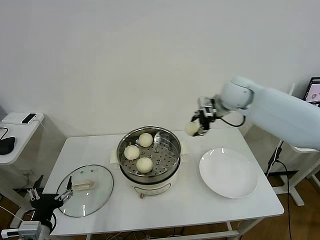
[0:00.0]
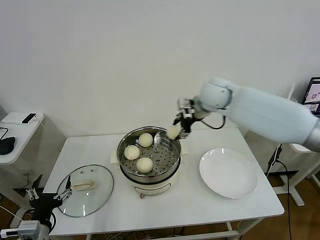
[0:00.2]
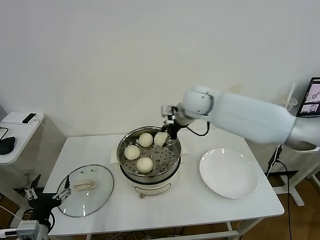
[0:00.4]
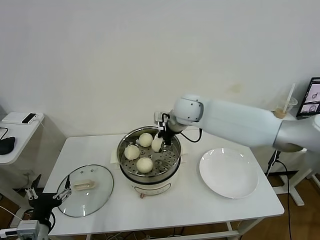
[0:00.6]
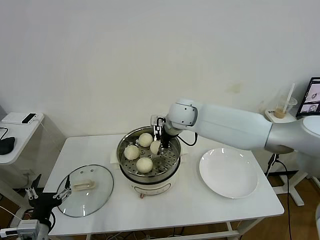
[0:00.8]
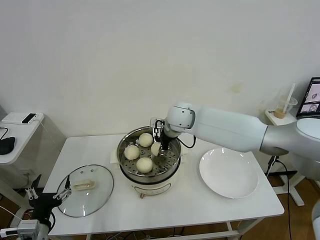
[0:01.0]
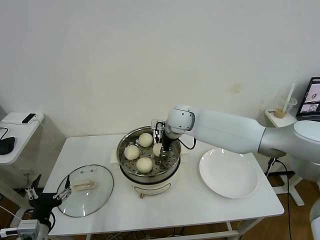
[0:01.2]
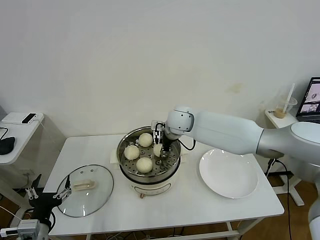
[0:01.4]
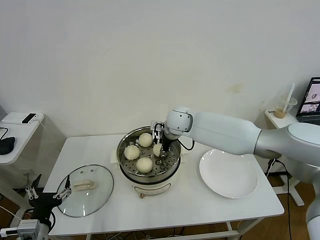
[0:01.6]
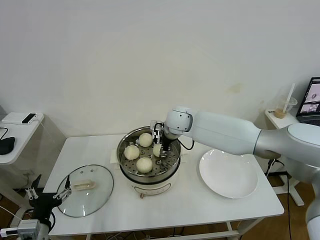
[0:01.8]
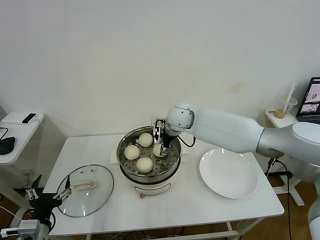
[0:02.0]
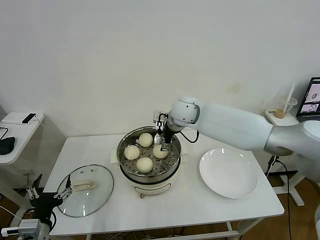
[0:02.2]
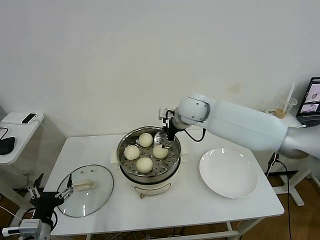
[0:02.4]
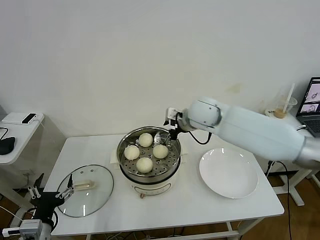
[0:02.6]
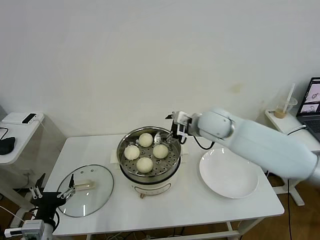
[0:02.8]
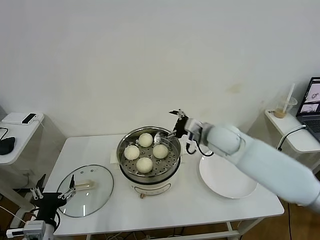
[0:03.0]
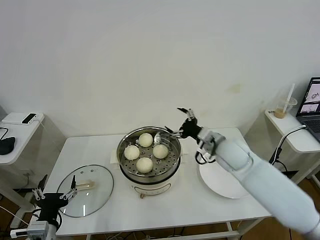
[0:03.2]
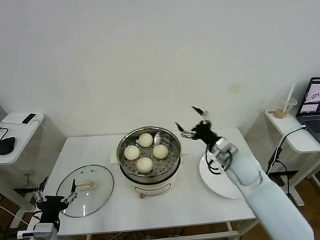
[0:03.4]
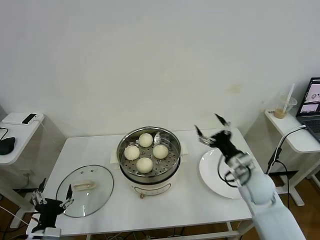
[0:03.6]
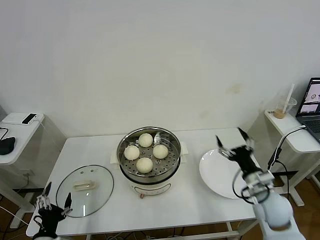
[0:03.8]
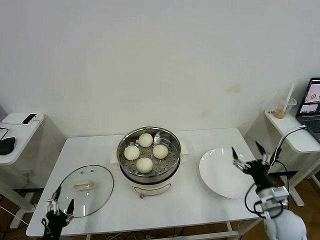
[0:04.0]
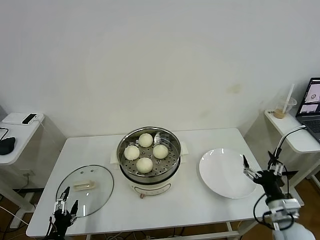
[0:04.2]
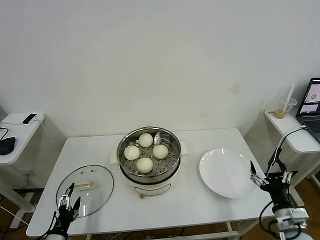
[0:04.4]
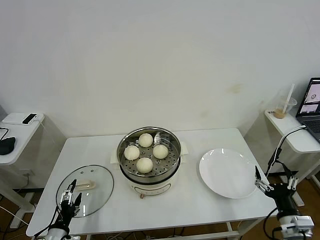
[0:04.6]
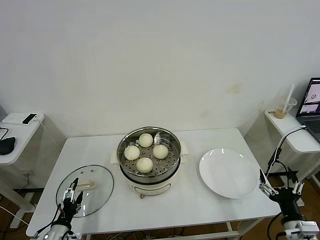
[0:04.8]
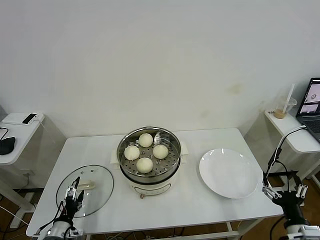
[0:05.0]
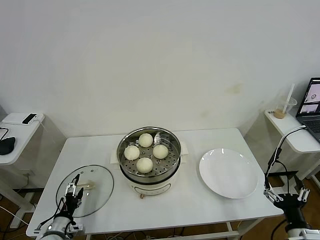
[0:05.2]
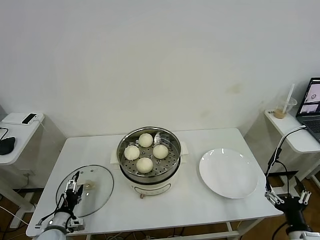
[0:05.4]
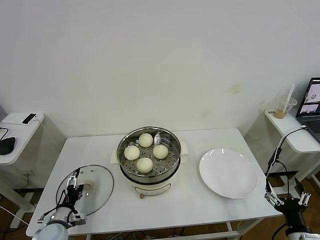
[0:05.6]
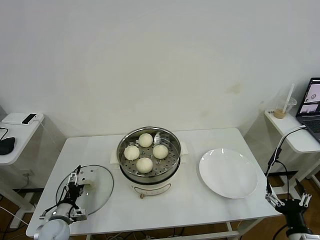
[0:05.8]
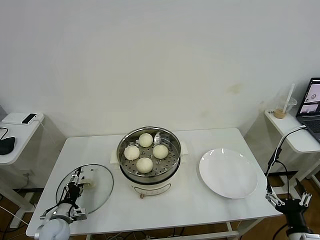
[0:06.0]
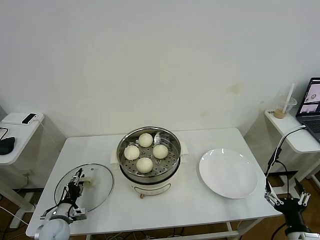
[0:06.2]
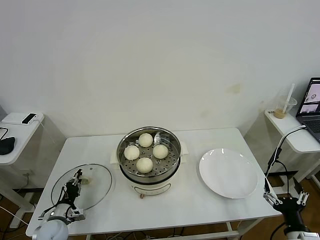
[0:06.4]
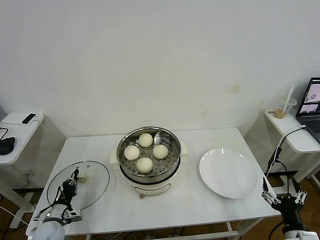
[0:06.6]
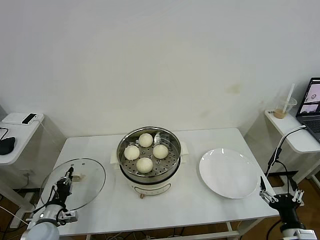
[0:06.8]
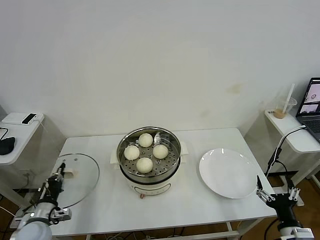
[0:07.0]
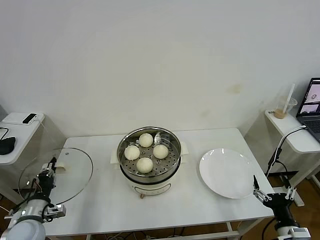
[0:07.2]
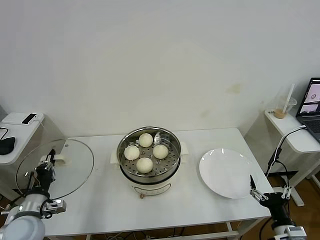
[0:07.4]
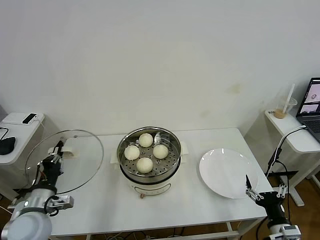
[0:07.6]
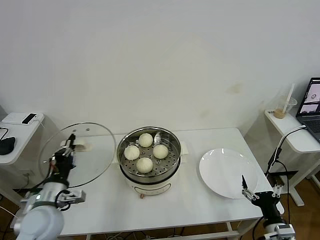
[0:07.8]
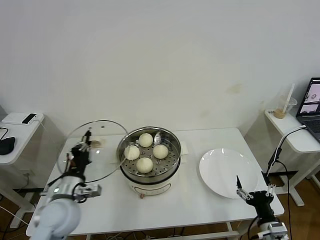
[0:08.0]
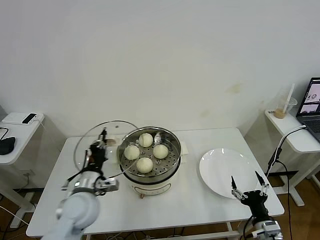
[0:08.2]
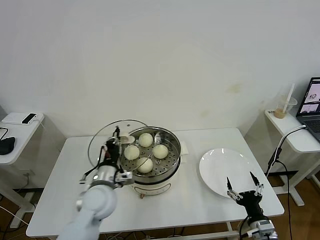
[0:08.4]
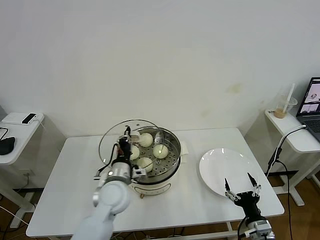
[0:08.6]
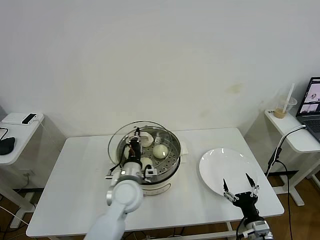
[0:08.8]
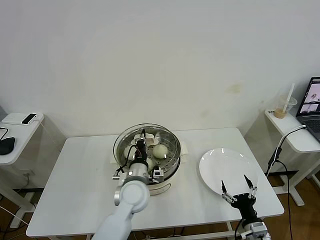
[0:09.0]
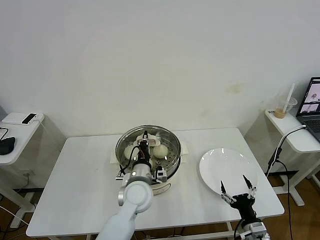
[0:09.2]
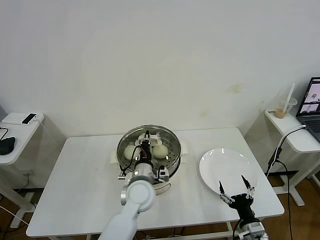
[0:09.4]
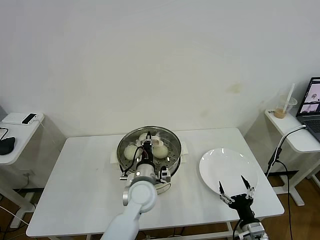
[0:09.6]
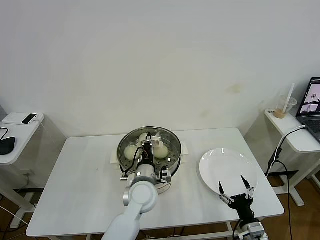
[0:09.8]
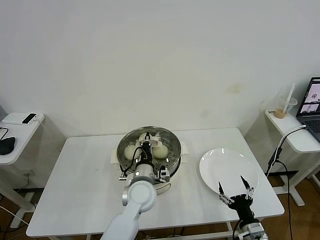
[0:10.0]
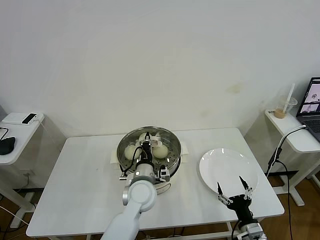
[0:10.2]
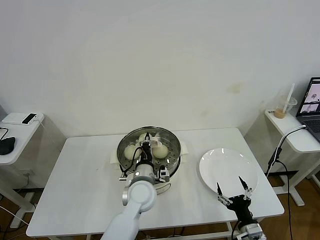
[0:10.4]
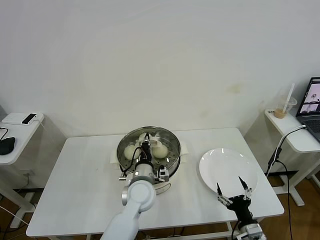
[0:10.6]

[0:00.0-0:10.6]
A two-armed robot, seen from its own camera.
Task of the whole recording: take steamed baozi put them in steamer then cover it.
Step, 0:00.0 to 0:02.2: Place the baozi on the steamer with right gripper.
Step, 0:02.4 to 0:06.6: Grasp the pot lid with left gripper.
0:00.0 to 0:01.6: The right gripper heads to the left and downward, covering about 20 cm.
0:01.6 to 0:03.0: The right gripper travels to the right and backward by about 15 cm, and opens.
0:03.0 to 0:04.6: The left gripper shifts roughly 10 cm downward, while the right gripper heads backward, to the right and downward, covering approximately 35 cm.
0:04.6 to 0:06.0: The left gripper moves forward, approximately 10 cm.
0:06.0 to 0:07.6: The left gripper is displaced upward by about 15 cm, and closes.
0:07.6 to 0:09.0: The right gripper shifts by about 5 cm; the left gripper is displaced to the right by about 25 cm.
0:09.0 to 0:10.6: The grippers move only a little.

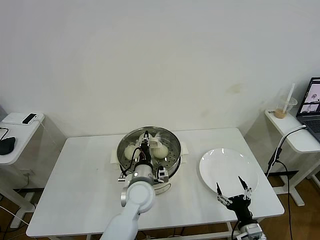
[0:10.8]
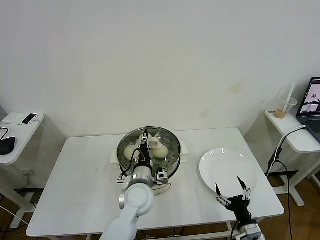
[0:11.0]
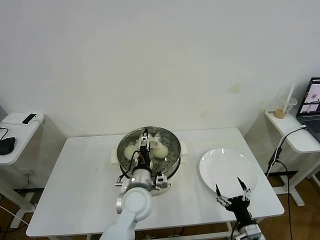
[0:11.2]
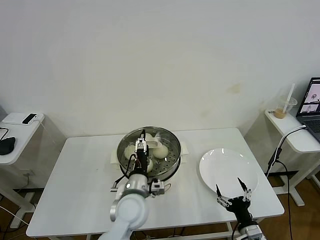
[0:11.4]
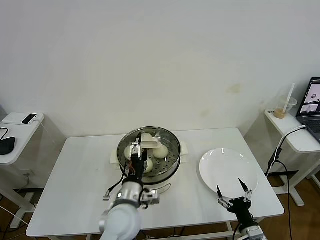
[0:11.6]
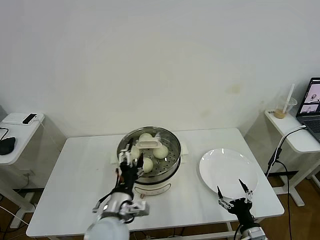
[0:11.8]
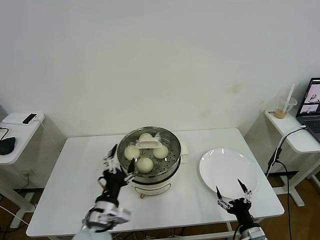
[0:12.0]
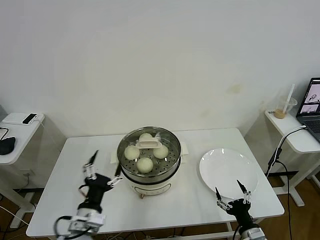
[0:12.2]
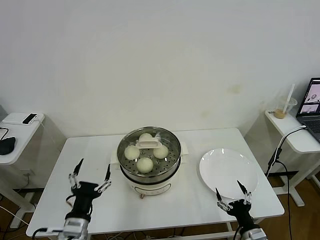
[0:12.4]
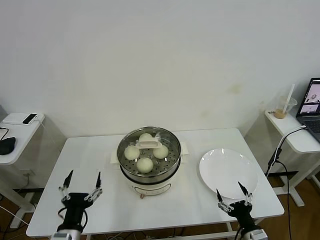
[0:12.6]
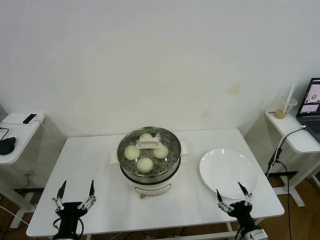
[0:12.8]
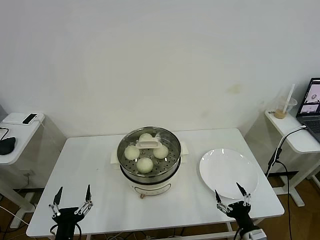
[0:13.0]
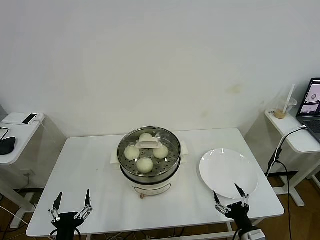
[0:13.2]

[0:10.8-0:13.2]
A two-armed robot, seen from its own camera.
Task of the whole recording: take steamed baozi put them in steamer then cover it.
0:10.8 to 0:12.0: The left gripper is displaced backward and to the left by about 15 cm, and opens up.
0:12.0 to 0:13.2: The left gripper goes about 15 cm to the left, backward and downward.
